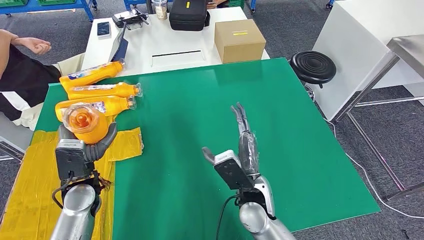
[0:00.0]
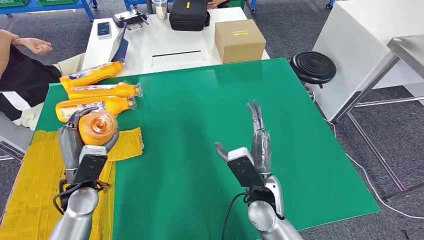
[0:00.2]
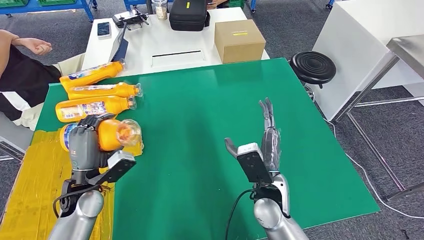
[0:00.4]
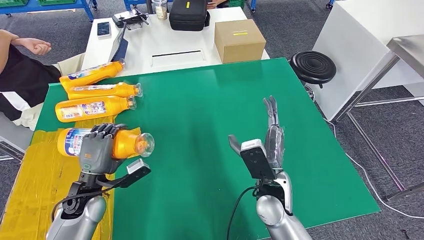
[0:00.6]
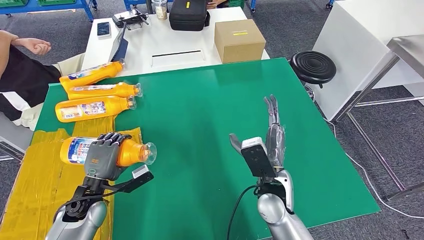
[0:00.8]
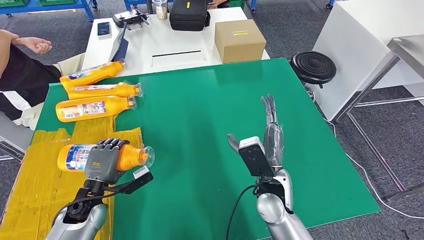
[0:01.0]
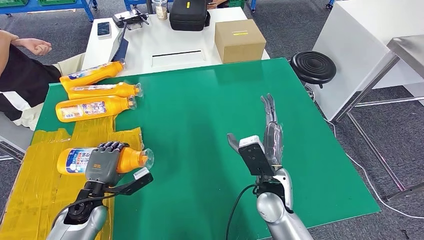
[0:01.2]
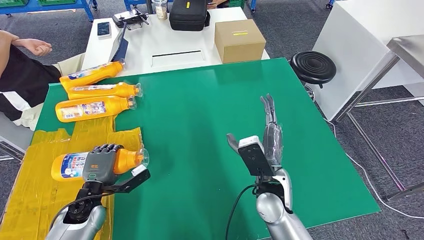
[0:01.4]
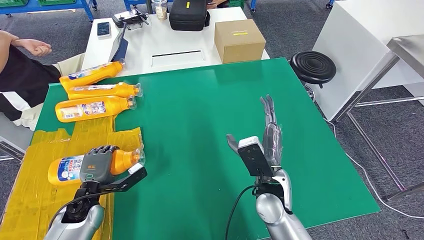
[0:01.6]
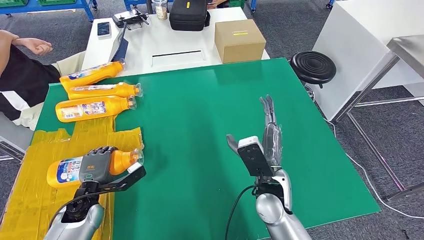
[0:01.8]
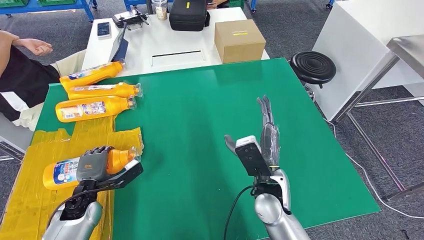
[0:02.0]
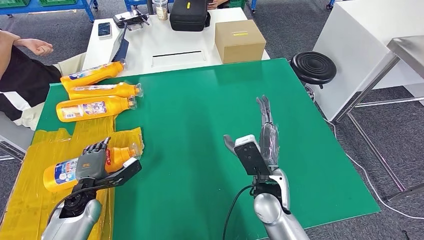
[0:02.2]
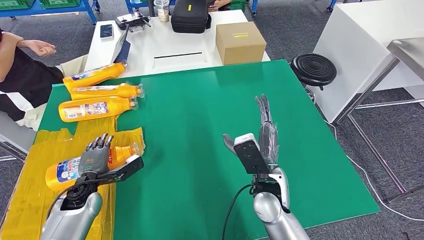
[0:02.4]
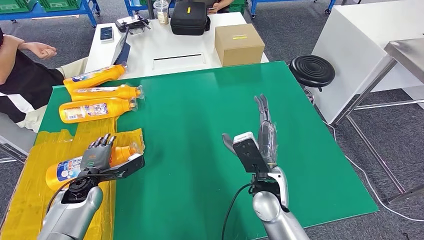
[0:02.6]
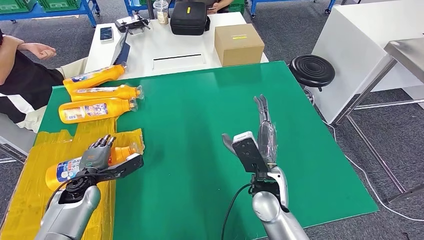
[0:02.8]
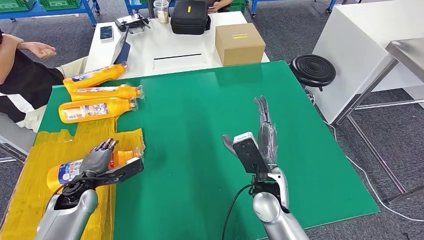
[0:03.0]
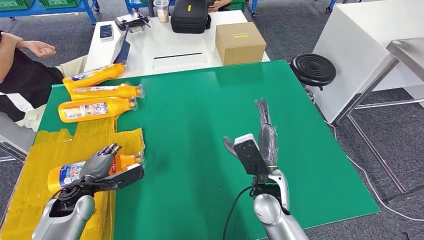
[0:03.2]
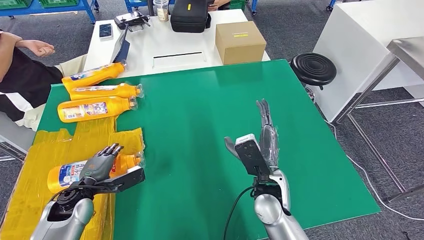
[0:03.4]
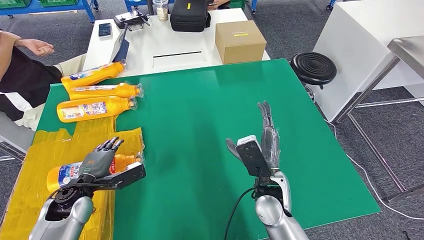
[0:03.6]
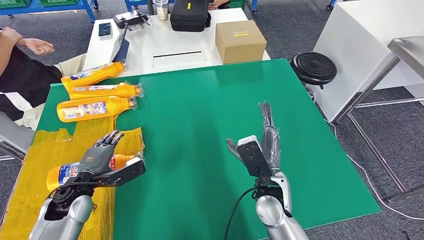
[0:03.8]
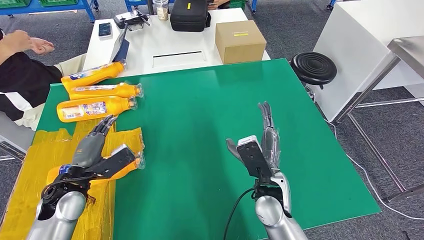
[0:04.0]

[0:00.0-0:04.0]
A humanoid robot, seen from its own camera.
Step, 0:00.0 to 0:04.0: Flip the fast-moving consumer goods bottle to the front side.
0:00.0 to 0:01.4: The left hand heads downward, covering about 10 cm.

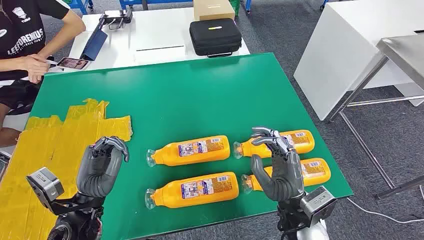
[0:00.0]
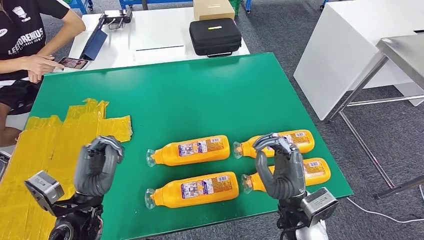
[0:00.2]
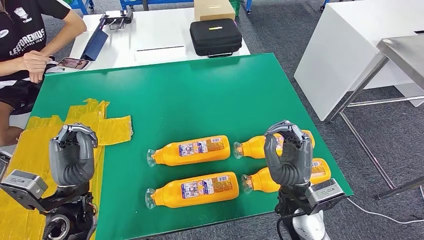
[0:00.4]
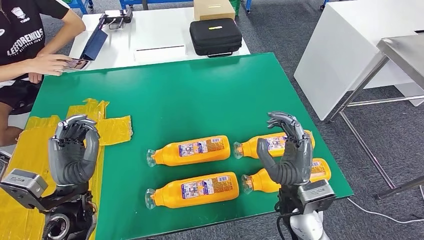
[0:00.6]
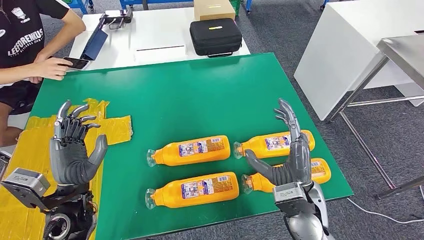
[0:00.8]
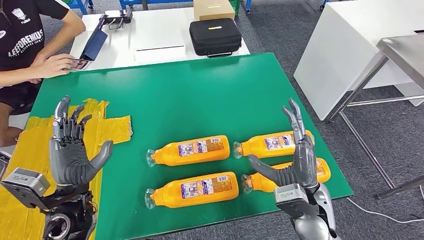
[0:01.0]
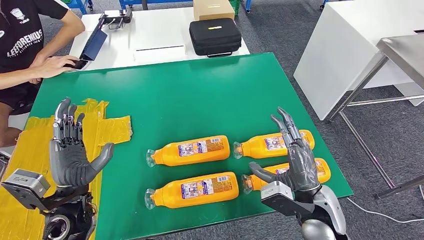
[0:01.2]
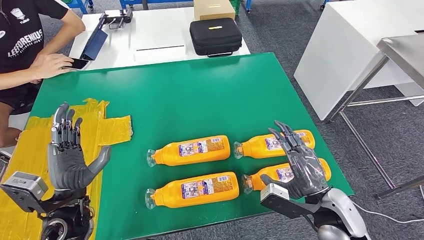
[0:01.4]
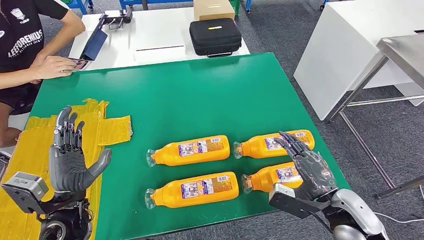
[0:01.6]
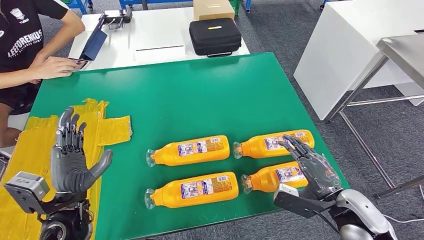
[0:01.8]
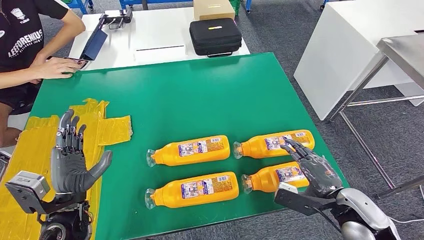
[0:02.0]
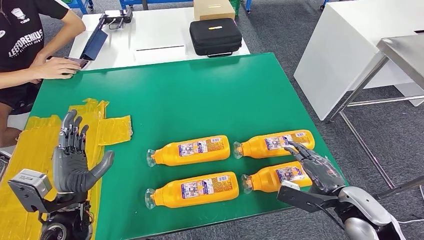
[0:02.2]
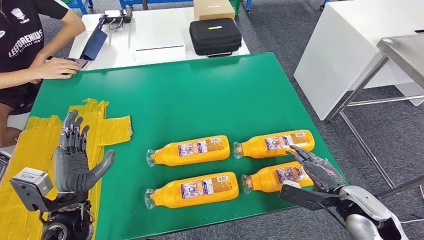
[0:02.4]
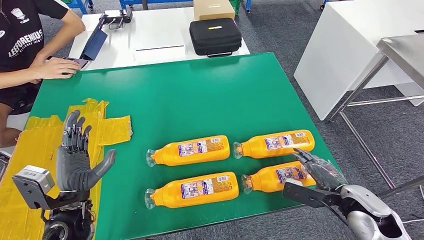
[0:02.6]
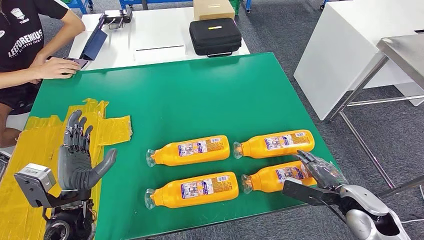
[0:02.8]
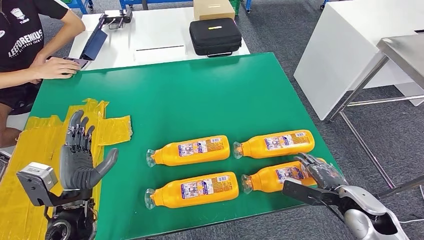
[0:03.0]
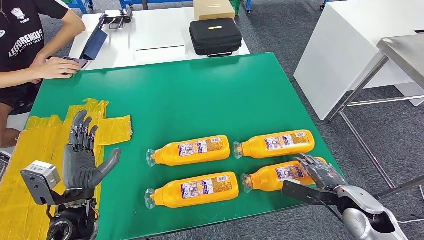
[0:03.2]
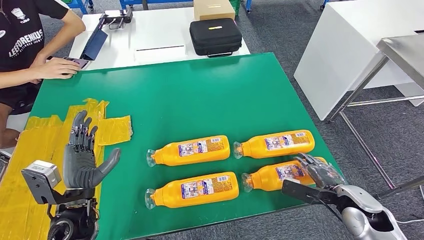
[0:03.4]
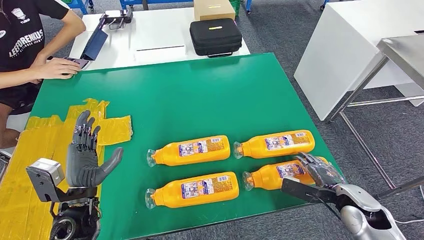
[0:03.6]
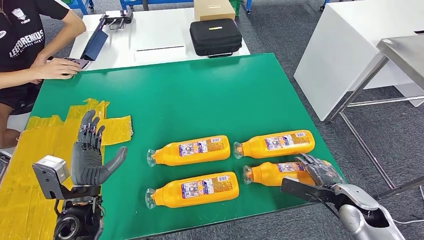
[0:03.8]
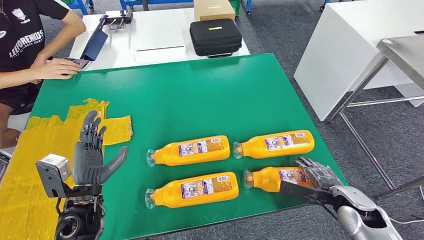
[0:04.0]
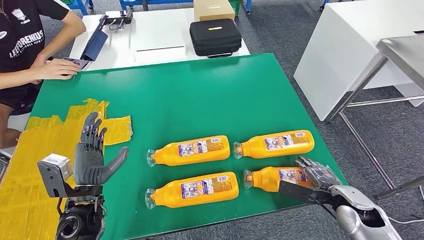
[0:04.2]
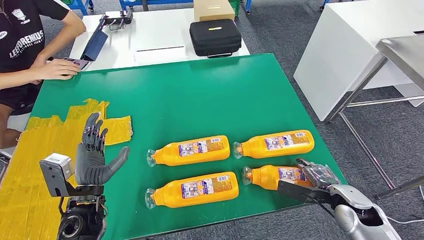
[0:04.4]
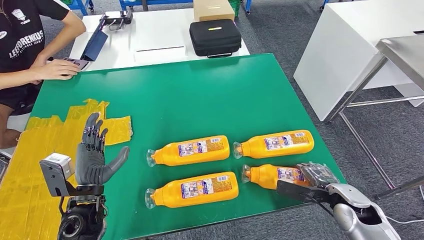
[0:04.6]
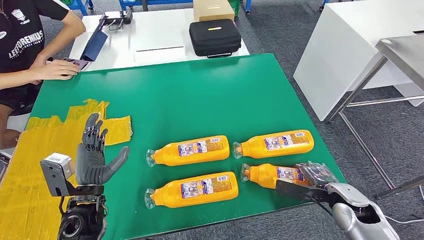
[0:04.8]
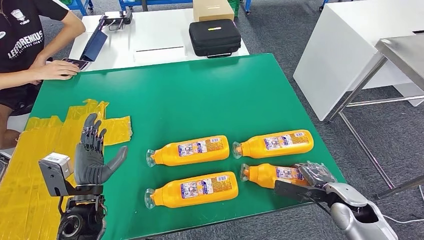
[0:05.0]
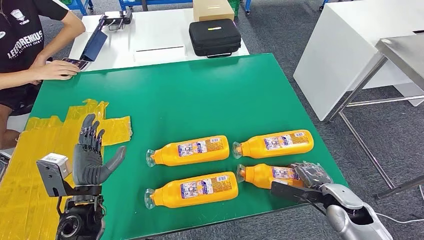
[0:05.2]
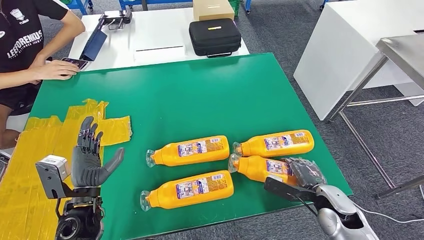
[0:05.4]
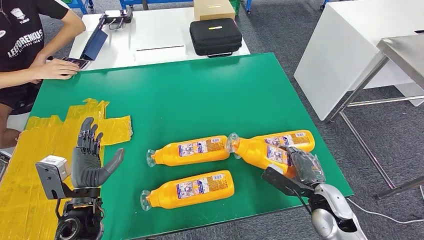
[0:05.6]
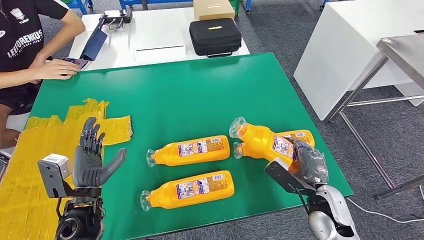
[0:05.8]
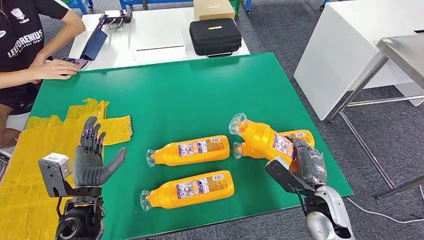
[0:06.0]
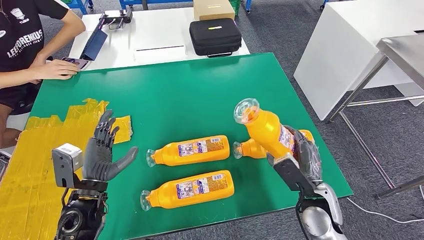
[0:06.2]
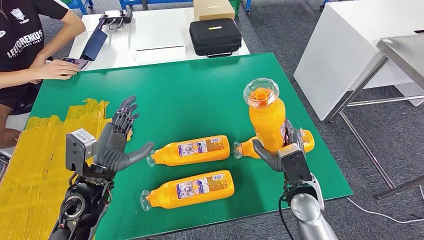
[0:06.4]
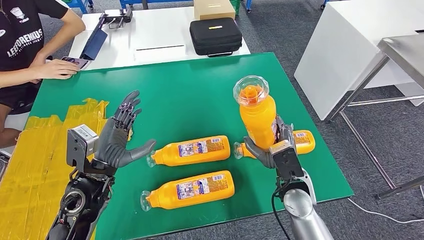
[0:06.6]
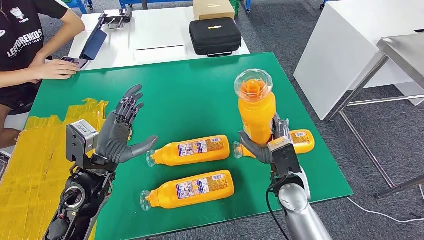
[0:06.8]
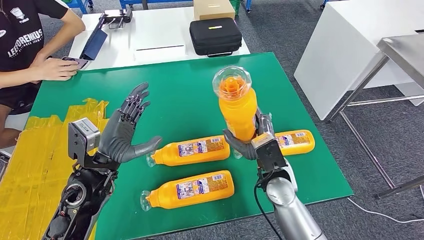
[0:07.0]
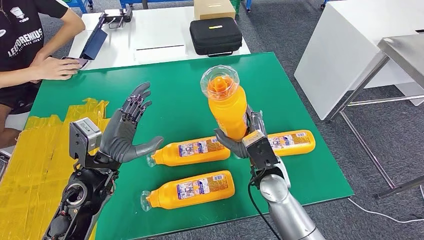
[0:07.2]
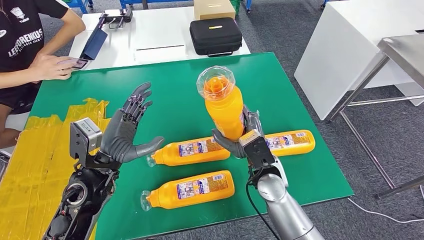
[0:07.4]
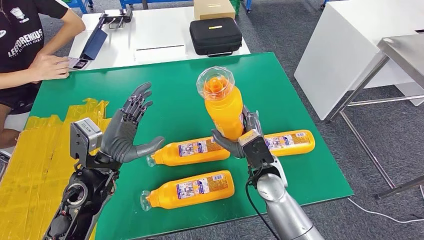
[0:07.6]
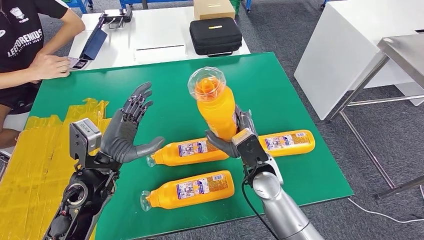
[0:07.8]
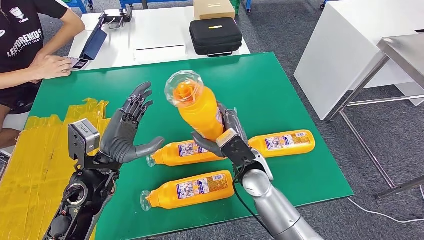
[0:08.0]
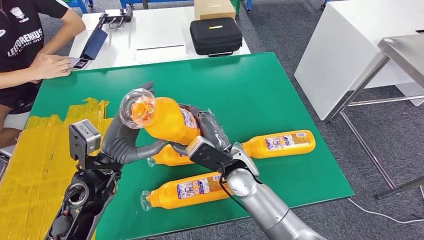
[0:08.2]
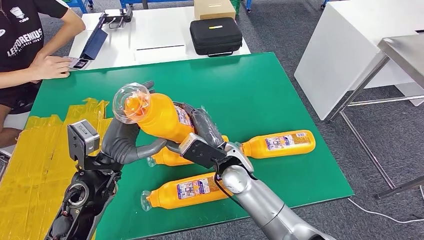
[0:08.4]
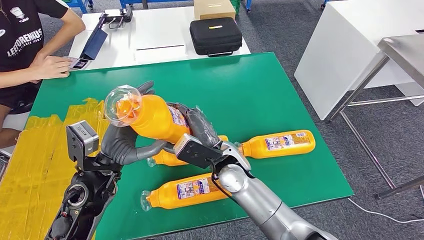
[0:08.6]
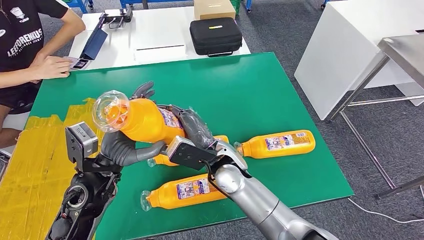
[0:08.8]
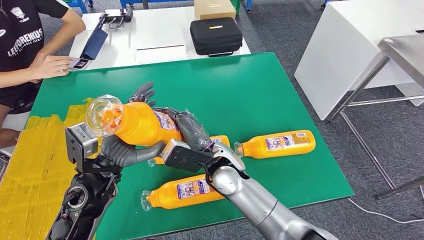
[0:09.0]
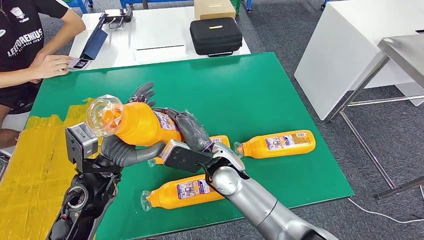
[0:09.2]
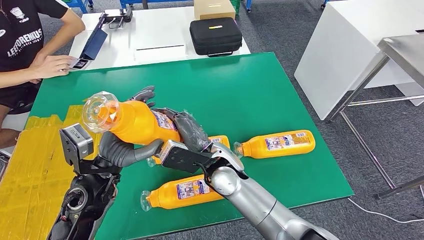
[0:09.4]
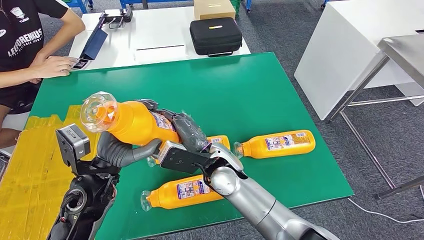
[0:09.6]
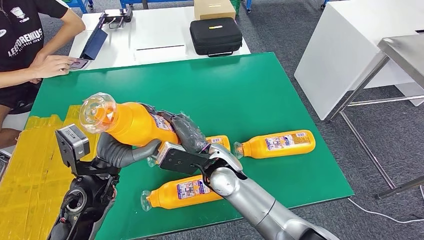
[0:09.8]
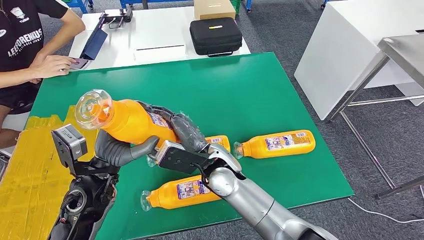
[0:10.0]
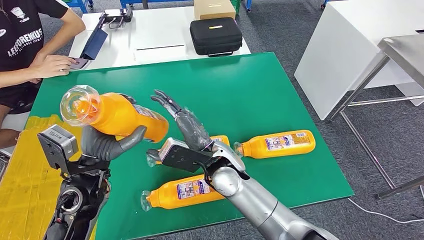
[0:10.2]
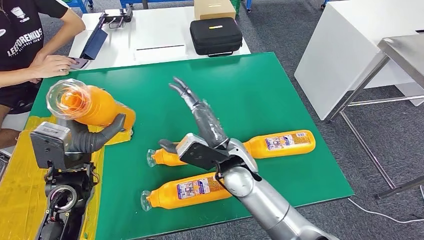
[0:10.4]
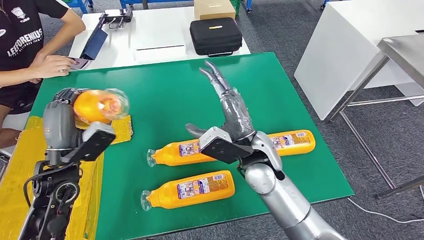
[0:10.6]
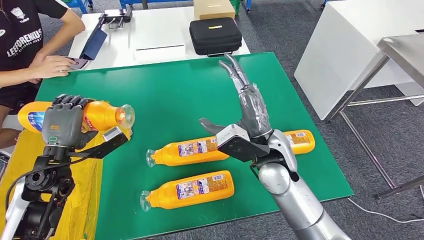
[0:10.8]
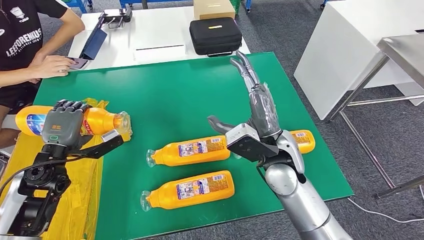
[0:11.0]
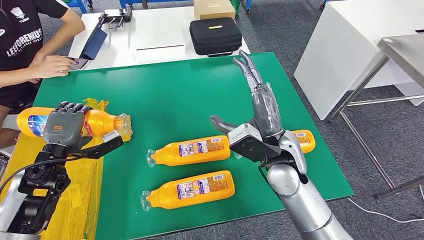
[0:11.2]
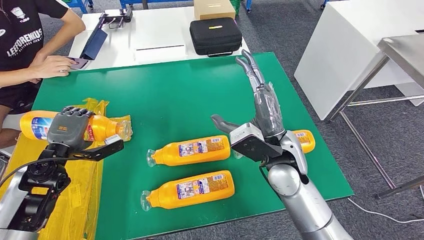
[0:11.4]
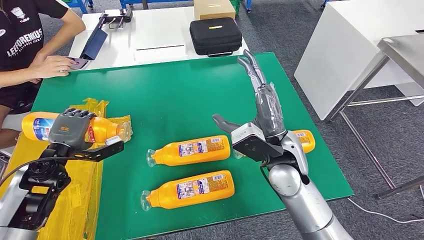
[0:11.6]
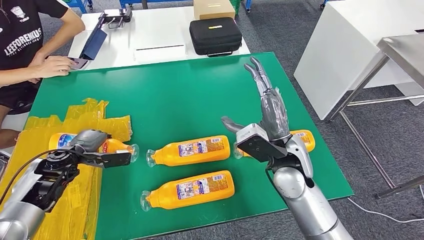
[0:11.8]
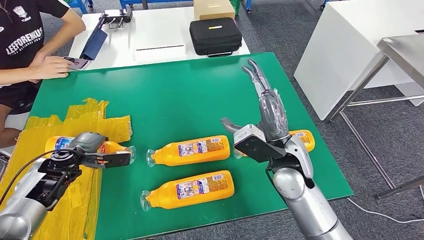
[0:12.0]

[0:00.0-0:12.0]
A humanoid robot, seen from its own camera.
Step, 0:00.0 to 0:08.0: Take the fast-moving consumer goods bottle from the table.
0:01.6 to 0:03.0: The right hand travels to the right and downward by about 10 cm.
0:03.0 to 0:04.4: The hands make only small movements.
0:04.4 to 0:06.0: The right hand travels to the left by approximately 10 cm.
0:06.0 to 0:07.6: The right hand goes approximately 15 cm to the left and forward. Meanwhile the left hand goes roughly 10 cm upward.
0:07.6 to 0:09.0: The right hand goes some 10 cm to the left.
0:09.0 to 0:10.4: The left hand is displaced to the left by approximately 5 cm.

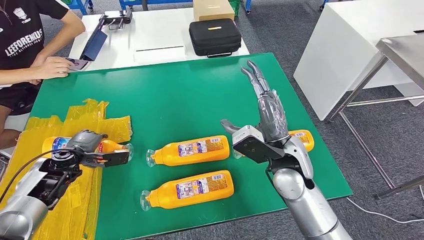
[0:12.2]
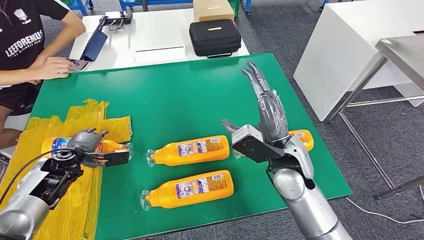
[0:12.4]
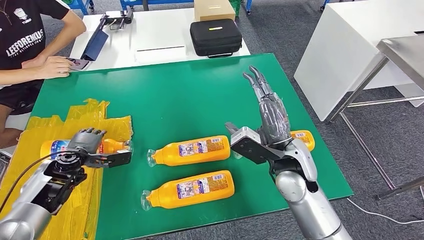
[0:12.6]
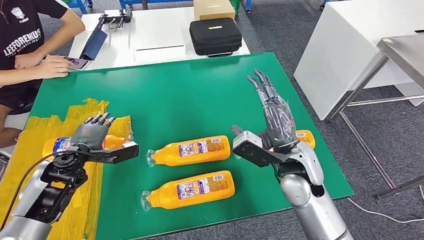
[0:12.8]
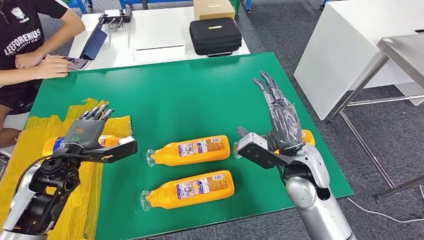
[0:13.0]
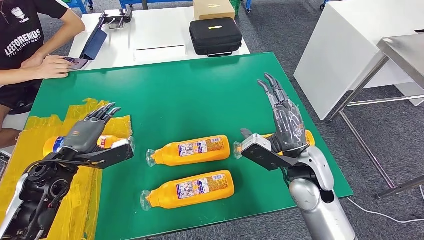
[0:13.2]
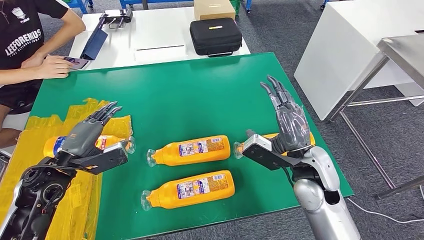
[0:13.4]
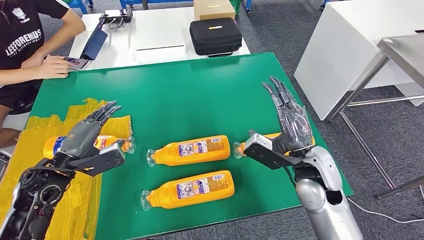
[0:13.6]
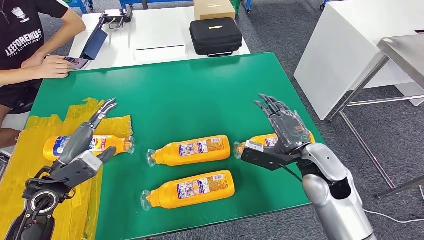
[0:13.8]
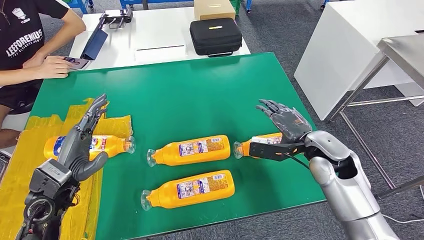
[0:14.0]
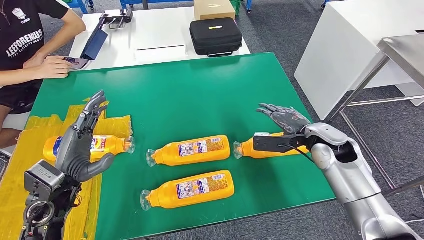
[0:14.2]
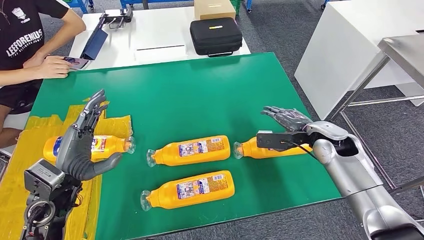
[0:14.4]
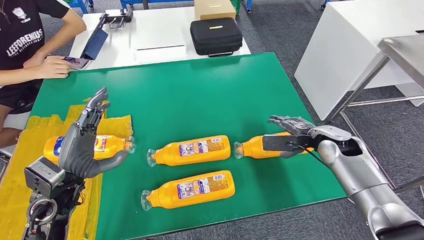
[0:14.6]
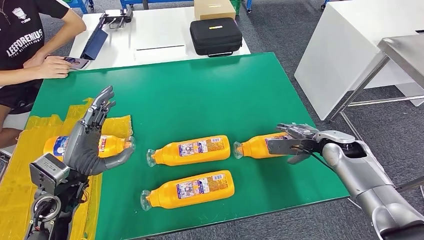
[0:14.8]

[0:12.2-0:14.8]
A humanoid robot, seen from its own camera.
0:12.2 to 0:13.4: The left hand is displaced upward and backward by about 10 cm, while the right hand shifts by about 5 cm.
